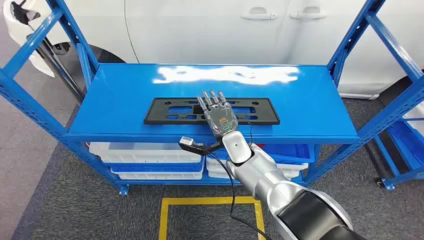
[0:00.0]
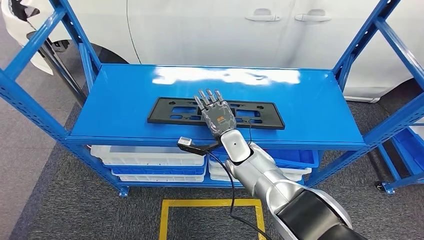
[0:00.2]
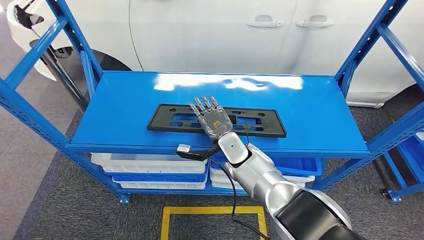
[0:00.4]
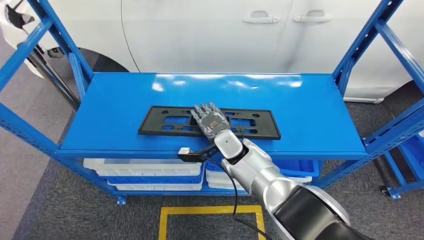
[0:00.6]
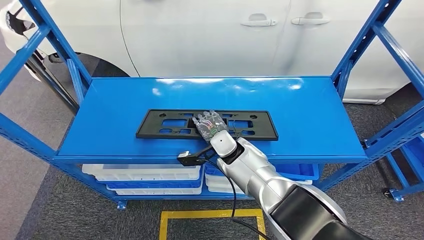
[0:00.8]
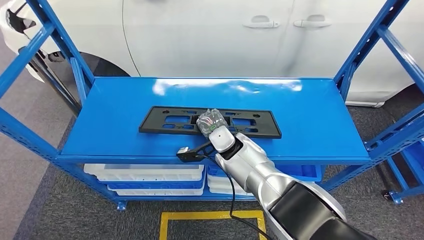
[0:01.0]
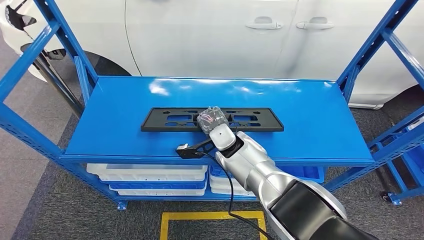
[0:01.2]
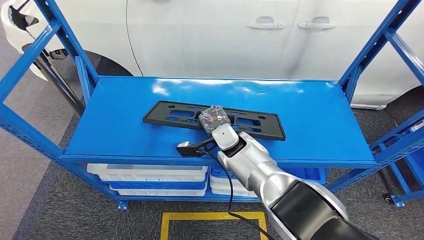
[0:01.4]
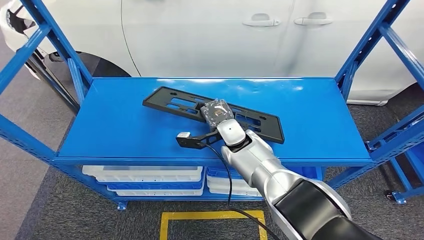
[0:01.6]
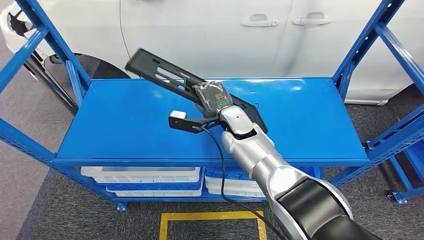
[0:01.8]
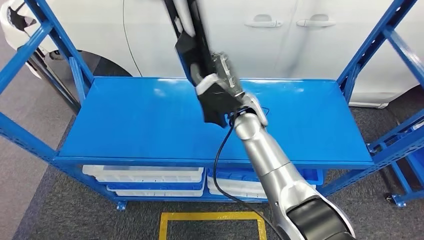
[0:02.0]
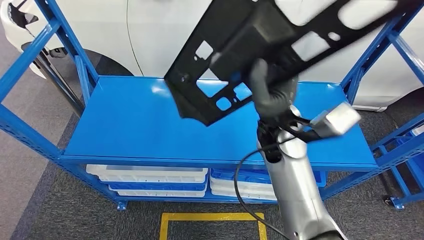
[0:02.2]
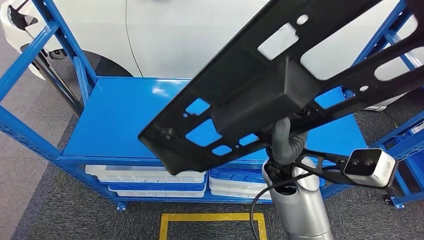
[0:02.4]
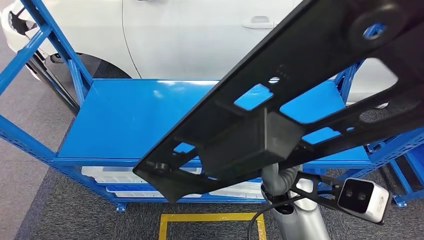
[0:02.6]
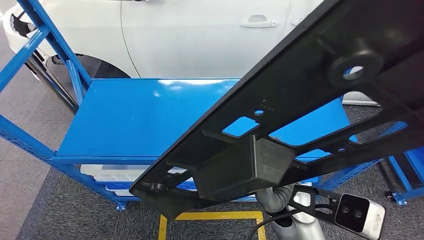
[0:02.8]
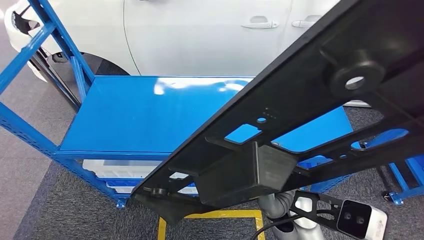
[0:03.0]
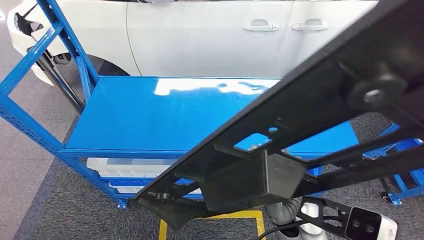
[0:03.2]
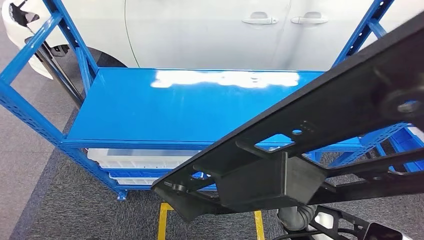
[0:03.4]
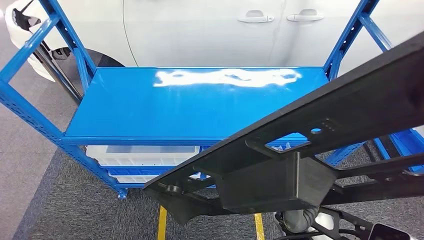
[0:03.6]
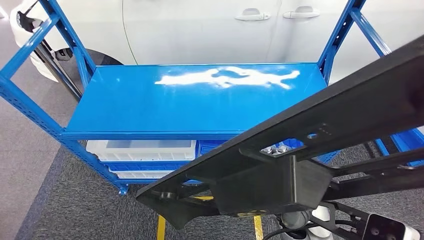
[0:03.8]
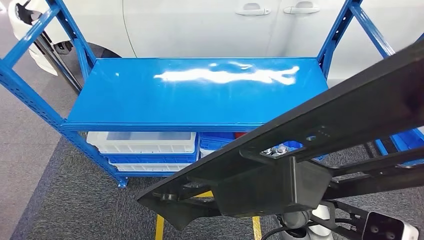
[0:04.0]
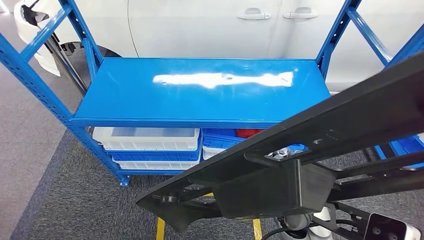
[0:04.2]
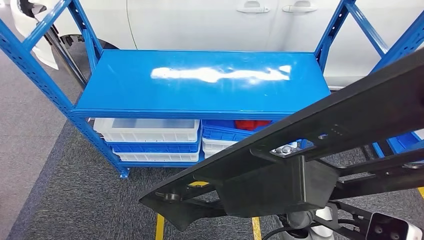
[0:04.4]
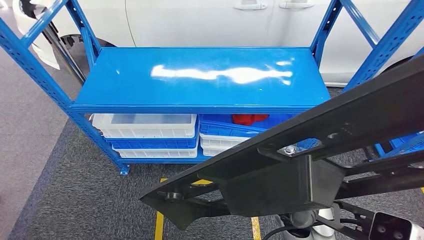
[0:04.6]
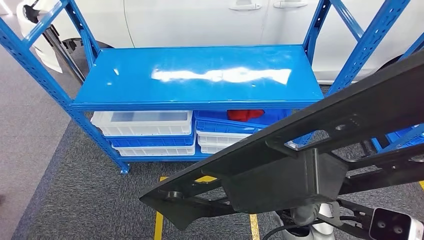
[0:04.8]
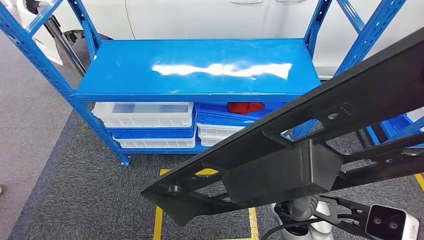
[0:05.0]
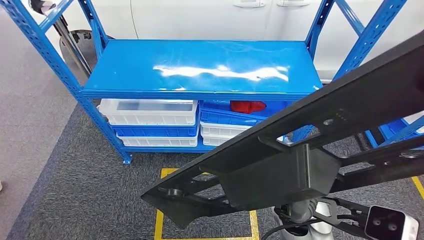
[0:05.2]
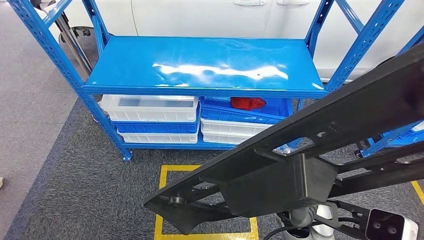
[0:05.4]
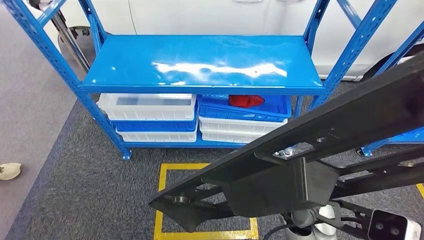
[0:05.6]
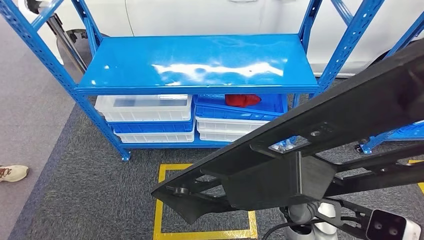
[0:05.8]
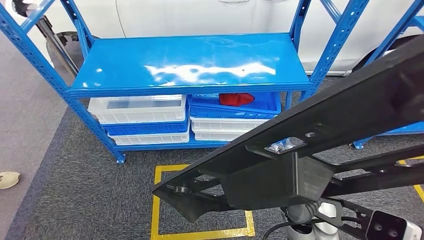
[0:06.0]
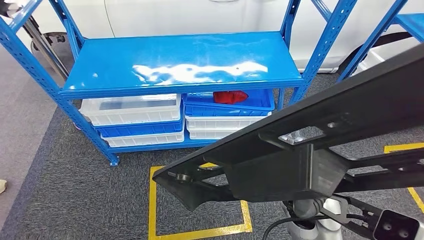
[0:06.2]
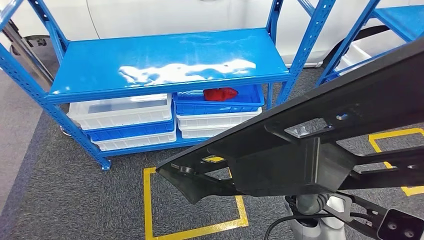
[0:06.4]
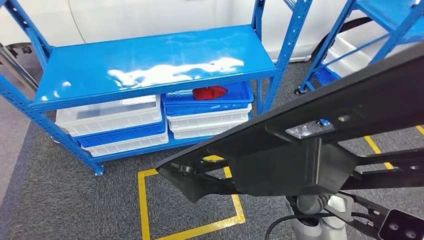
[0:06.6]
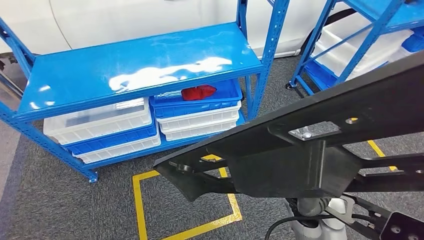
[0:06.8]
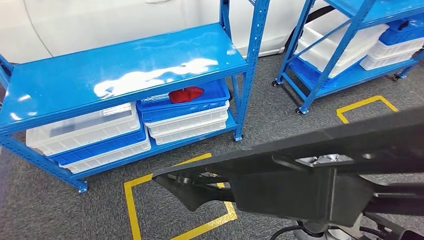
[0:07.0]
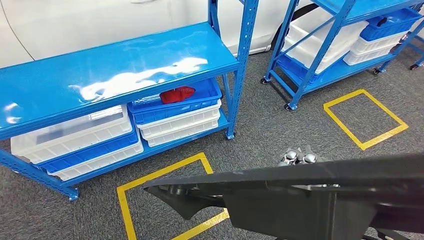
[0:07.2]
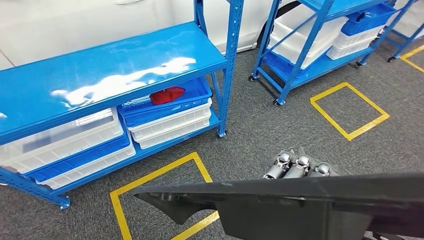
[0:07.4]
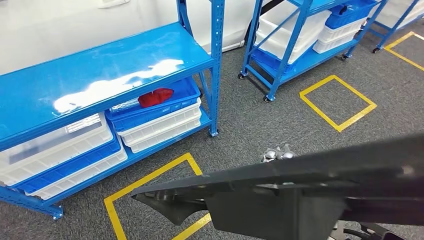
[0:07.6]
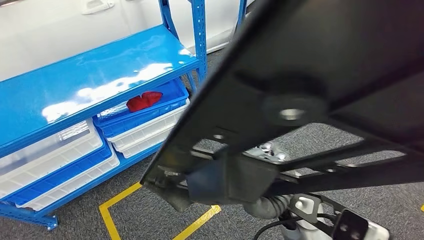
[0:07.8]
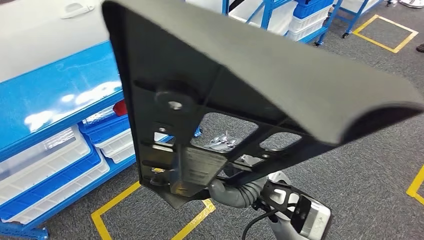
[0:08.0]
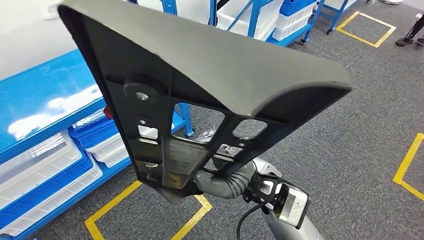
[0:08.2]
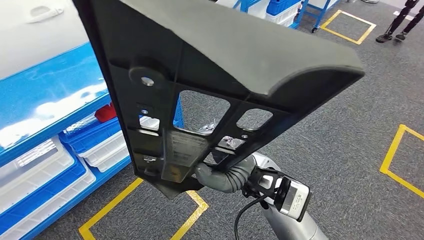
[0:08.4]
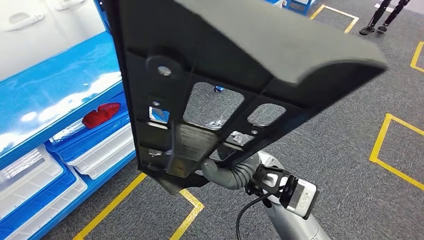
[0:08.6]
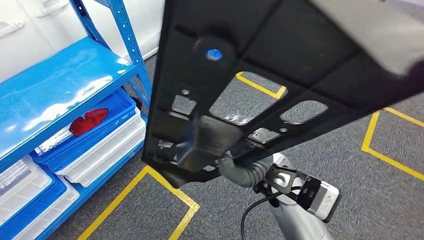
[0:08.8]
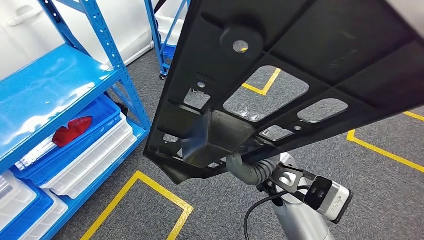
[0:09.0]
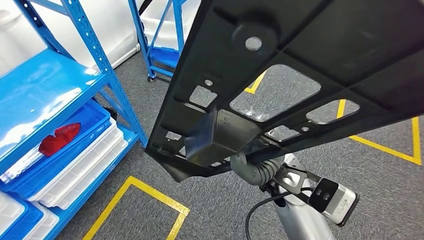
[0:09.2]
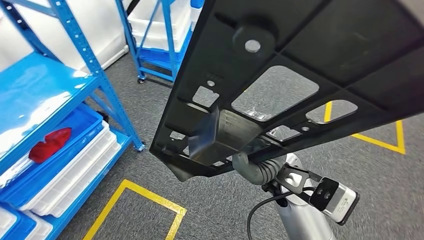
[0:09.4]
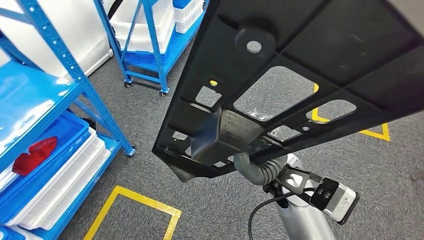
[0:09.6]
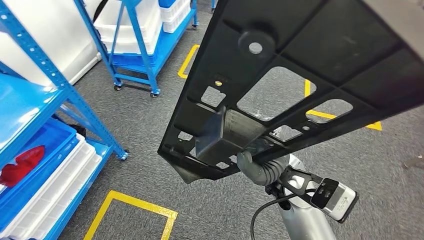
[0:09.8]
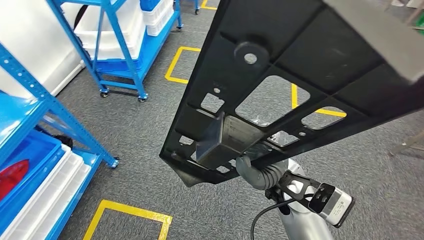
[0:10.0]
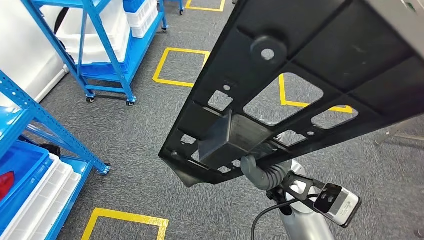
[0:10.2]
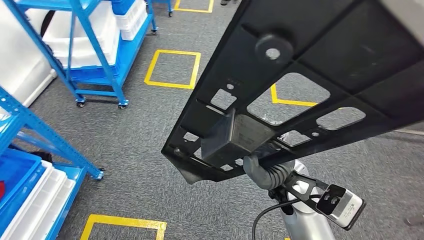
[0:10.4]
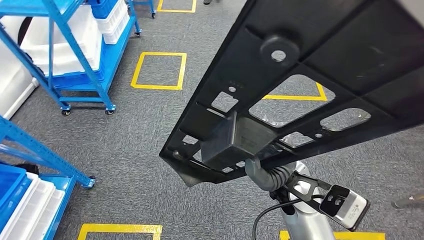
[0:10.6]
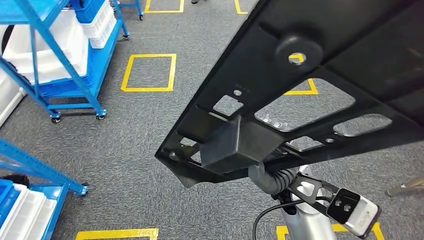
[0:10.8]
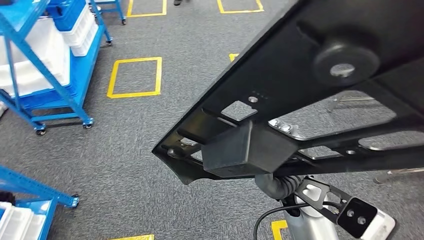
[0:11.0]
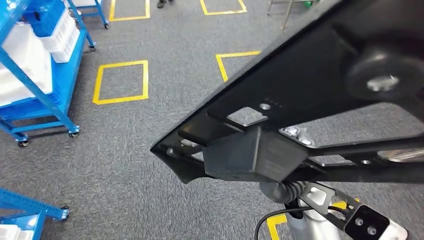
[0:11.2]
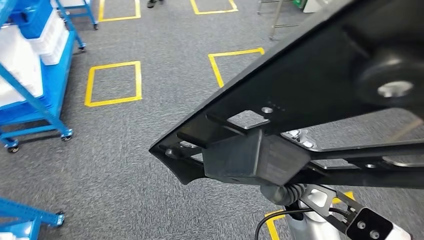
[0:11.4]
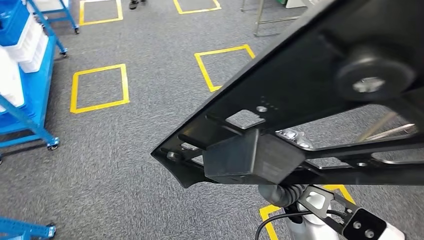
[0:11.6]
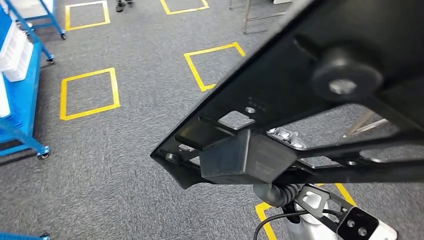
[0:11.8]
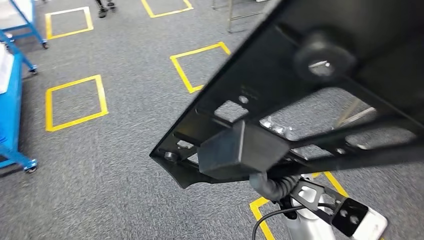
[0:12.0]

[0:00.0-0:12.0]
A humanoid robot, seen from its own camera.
Step, 0:00.0 to 0:02.6: Pick up the large material from the shelf.

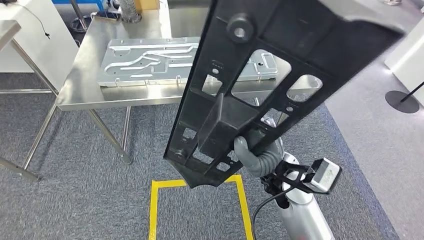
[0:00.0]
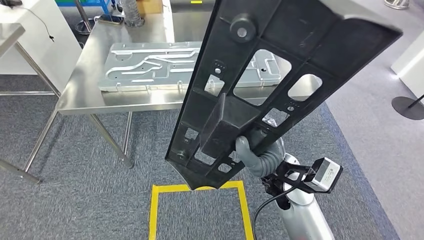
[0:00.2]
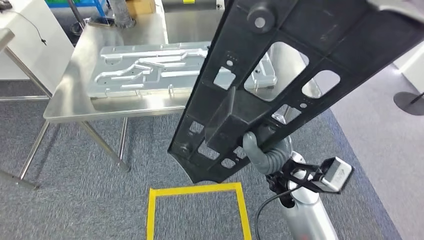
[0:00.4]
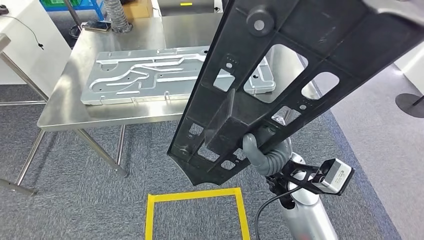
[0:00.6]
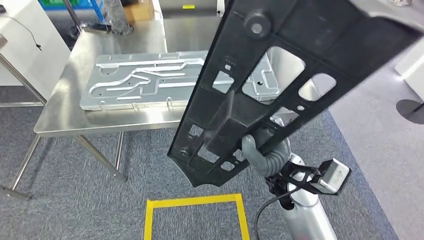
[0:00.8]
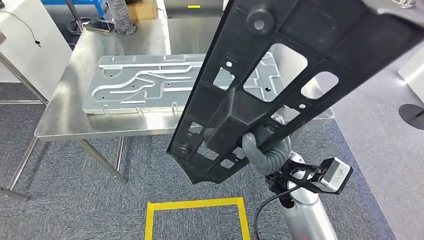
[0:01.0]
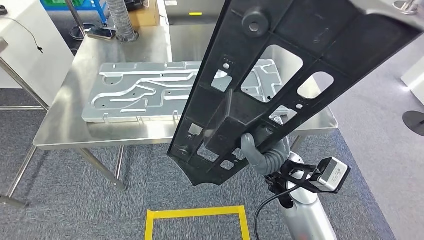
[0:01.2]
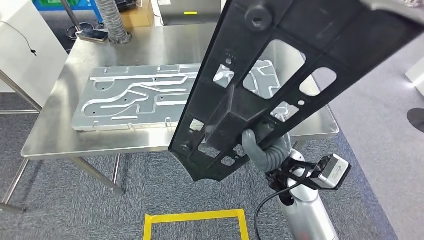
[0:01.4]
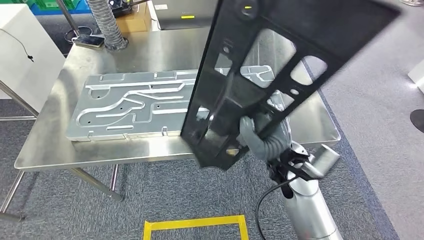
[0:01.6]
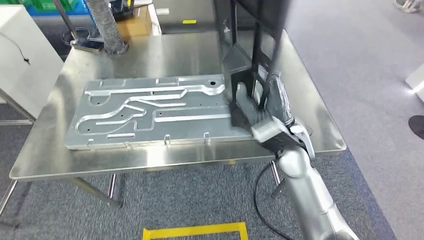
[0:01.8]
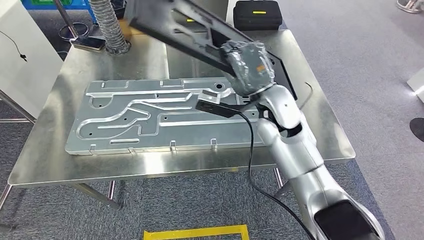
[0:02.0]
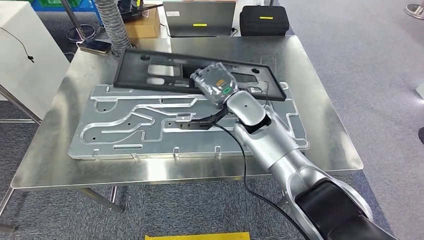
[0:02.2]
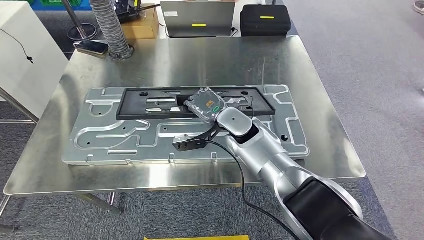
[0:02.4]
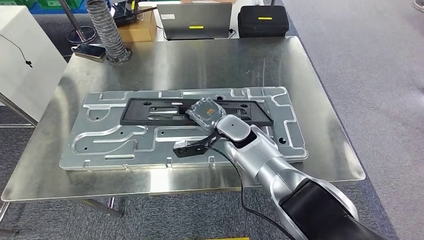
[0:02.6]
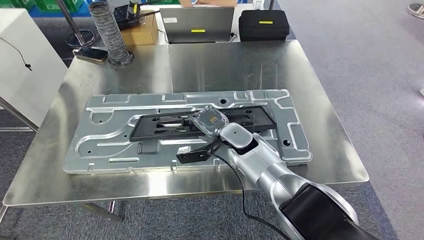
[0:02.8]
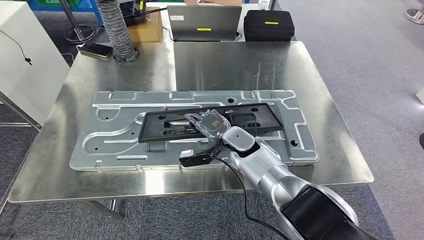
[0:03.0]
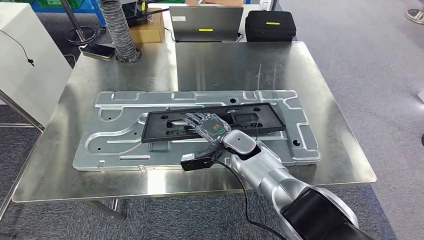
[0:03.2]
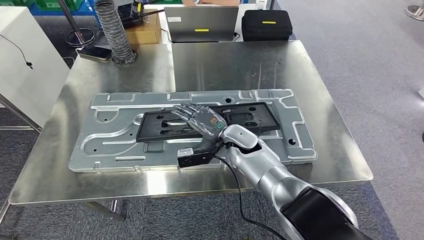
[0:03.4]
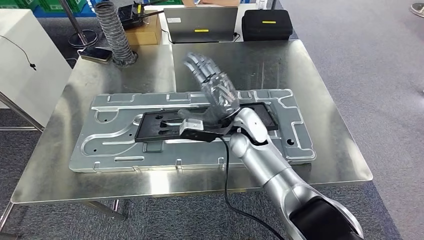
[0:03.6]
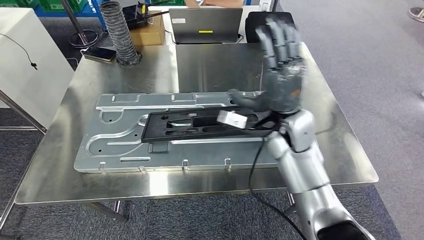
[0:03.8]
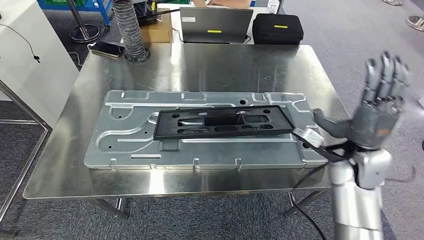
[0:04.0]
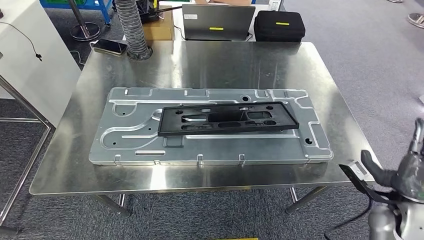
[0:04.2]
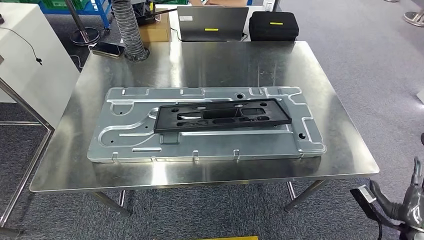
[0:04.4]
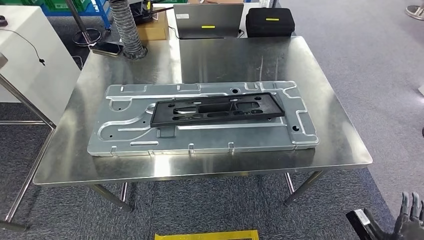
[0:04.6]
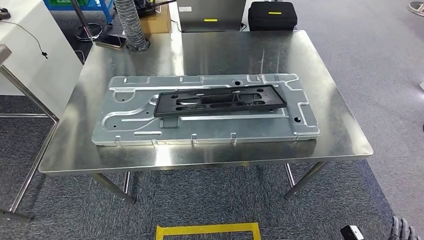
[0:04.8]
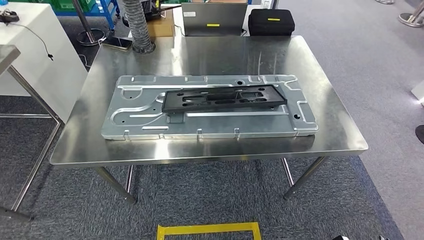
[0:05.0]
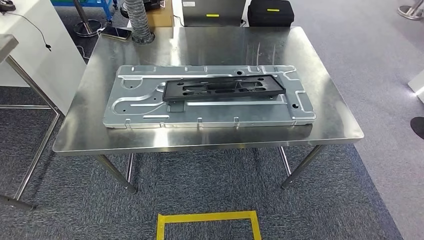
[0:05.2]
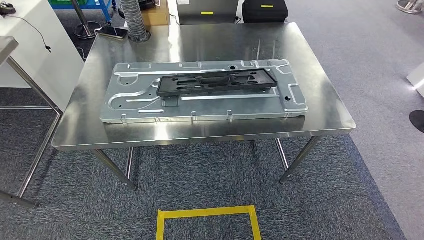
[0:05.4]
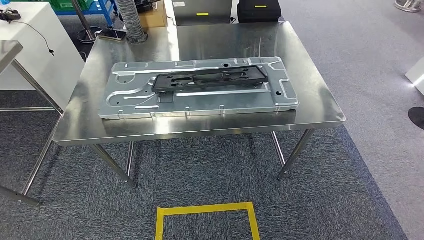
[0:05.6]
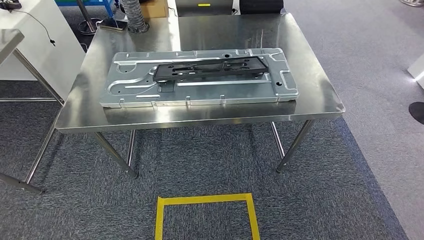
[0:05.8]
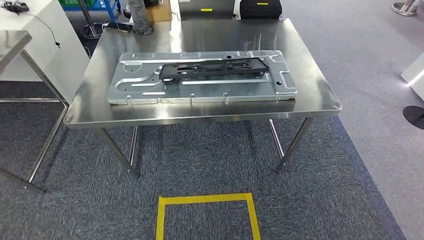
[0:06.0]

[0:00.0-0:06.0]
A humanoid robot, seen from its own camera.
Step, 0:00.0 to 0:02.2: Move the large material to the front of the workbench.
Step, 0:02.4 to 0:04.8: Insert the large material into the corresponding hole on the workbench.
